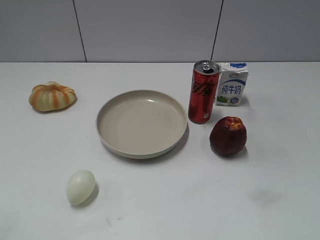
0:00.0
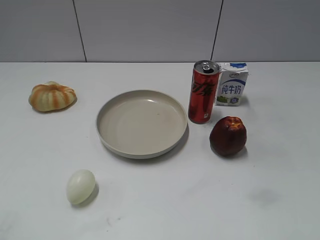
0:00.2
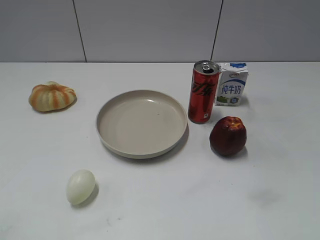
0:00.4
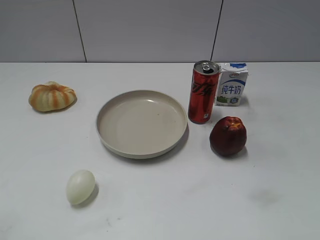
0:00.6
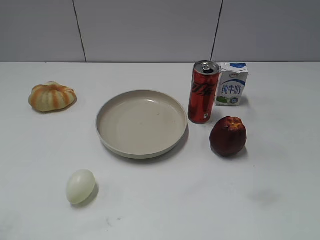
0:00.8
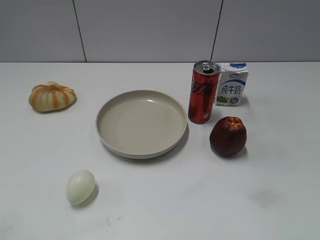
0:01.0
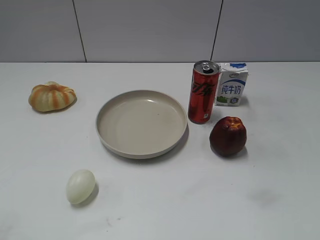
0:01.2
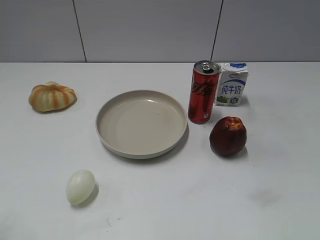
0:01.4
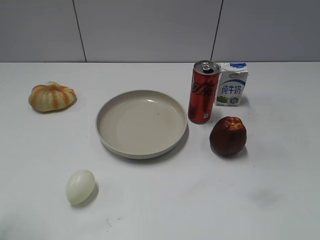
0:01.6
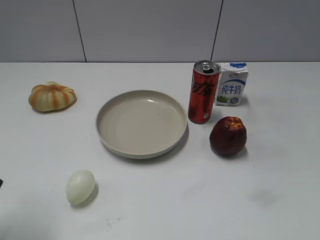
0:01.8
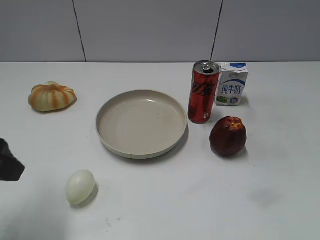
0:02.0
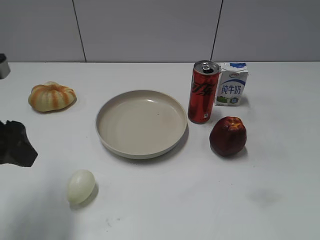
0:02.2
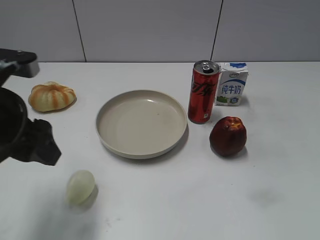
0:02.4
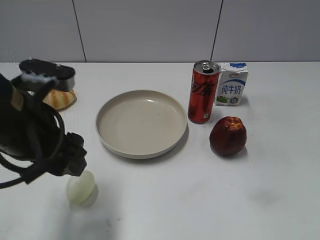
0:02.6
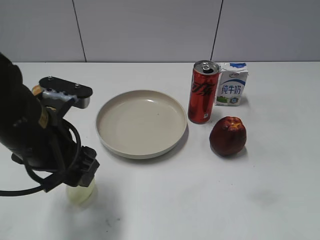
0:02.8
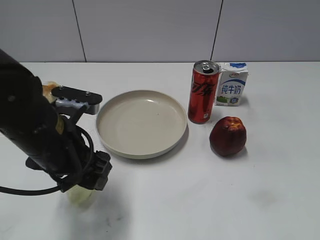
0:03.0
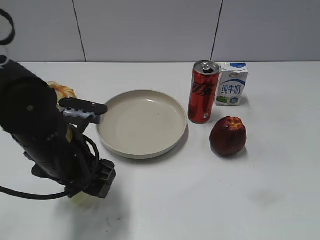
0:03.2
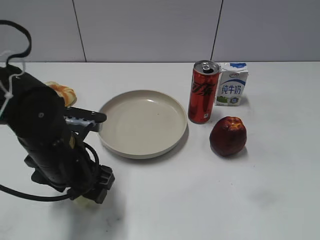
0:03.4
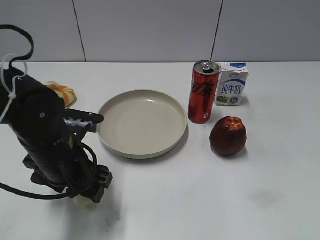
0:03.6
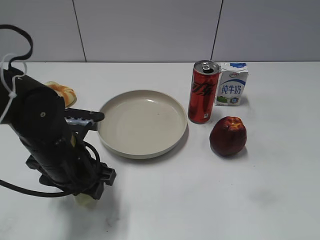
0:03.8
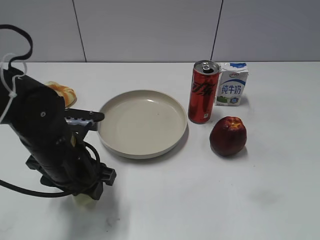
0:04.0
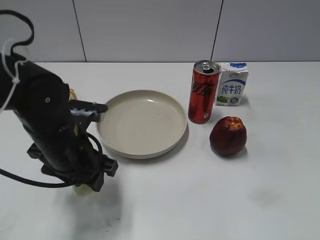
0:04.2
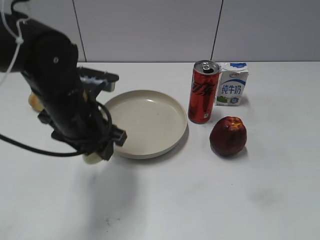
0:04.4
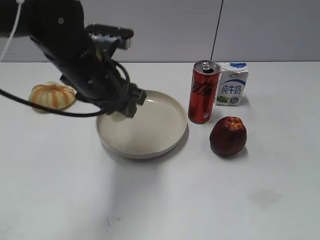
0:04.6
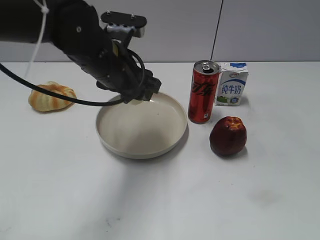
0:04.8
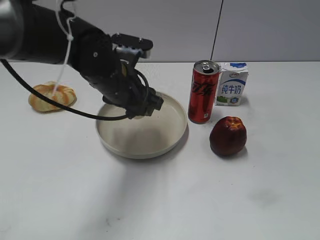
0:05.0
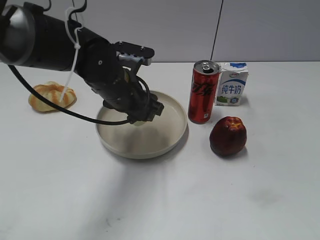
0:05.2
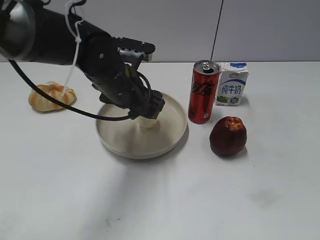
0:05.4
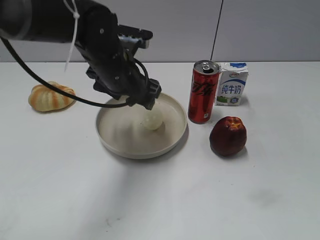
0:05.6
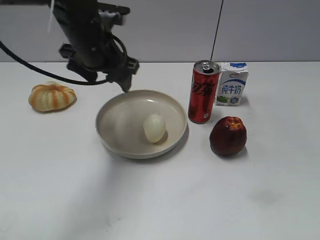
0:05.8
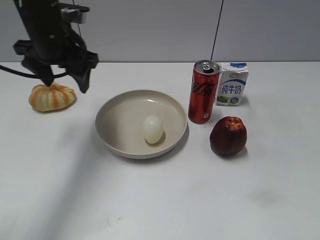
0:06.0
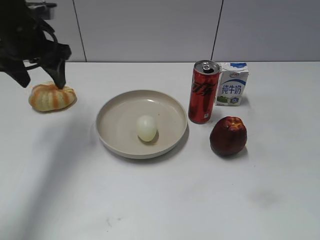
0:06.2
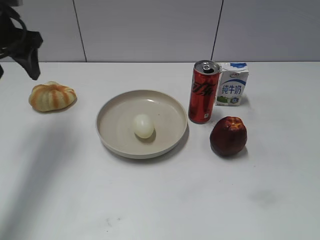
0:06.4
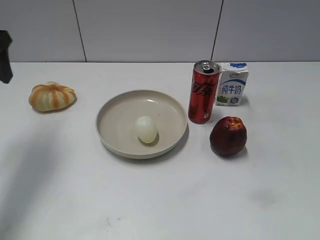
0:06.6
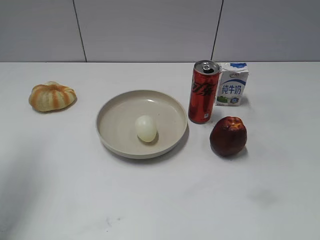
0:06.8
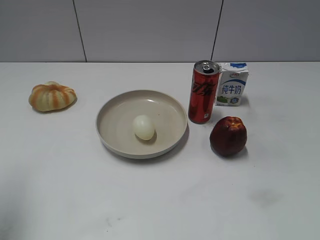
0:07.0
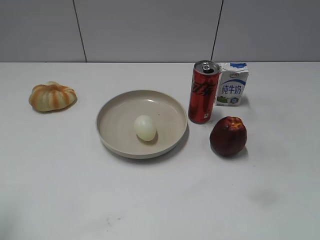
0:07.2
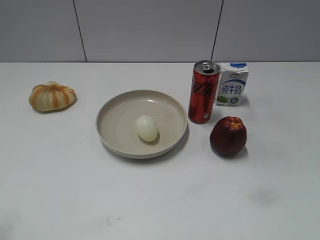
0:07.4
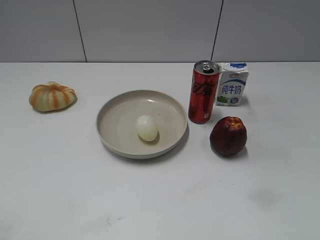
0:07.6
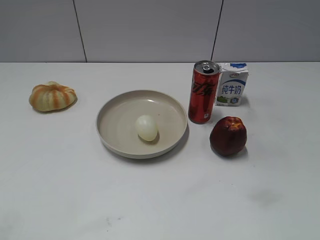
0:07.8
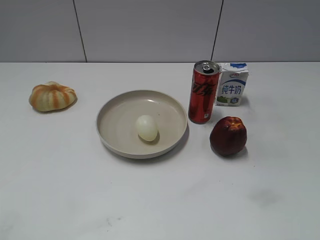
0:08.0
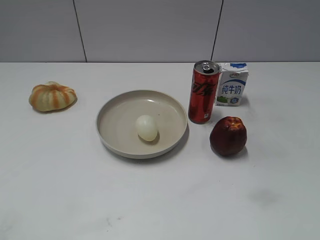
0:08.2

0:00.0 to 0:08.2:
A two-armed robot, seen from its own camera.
Step, 0:00.8 to 0:03.8: Grasp the egg with left gripper.
Step, 0:04.0 to 0:05.6: Place the egg on the plate with left gripper.
0:01.6 to 0:03.2: The left gripper travels to the right, downward and forward by roughly 20 cm, and opens up.
0:03.2 to 0:05.0: The left gripper goes roughly 15 cm forward and to the right, and closes.
0:05.0 to 0:06.6: The left gripper travels to the left and upward by roughly 25 cm, and opens.
0:06.6 to 0:08.2: The left gripper shifts approximately 30 cm backward.
